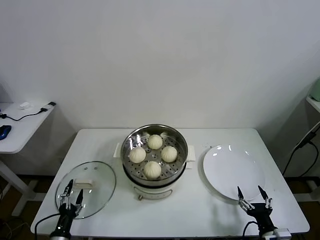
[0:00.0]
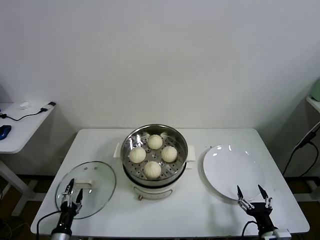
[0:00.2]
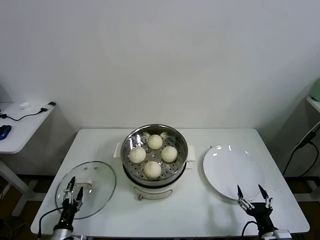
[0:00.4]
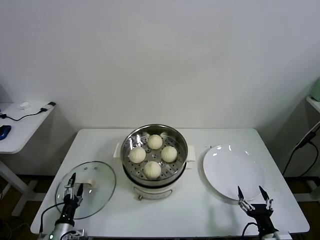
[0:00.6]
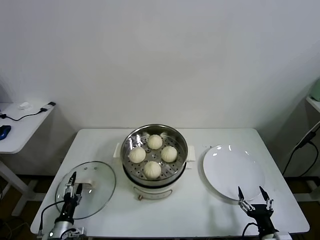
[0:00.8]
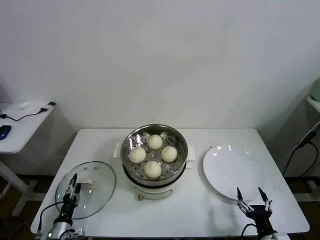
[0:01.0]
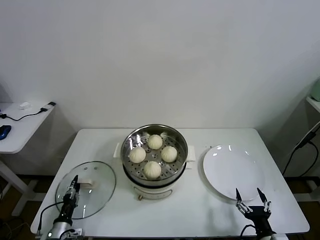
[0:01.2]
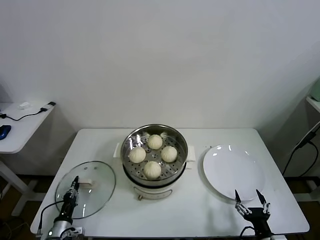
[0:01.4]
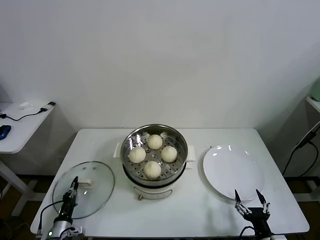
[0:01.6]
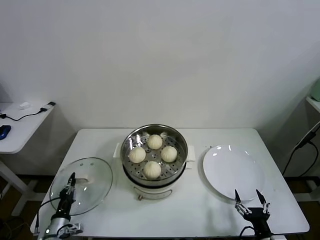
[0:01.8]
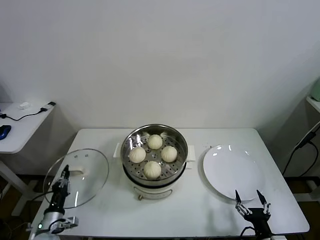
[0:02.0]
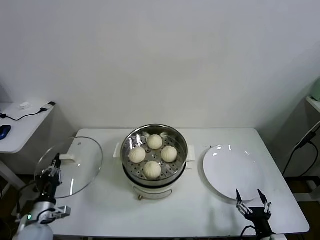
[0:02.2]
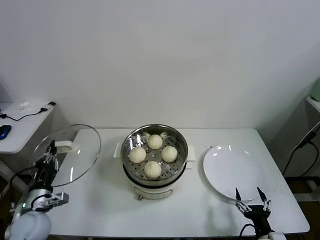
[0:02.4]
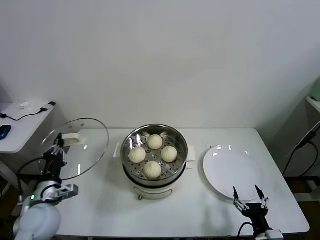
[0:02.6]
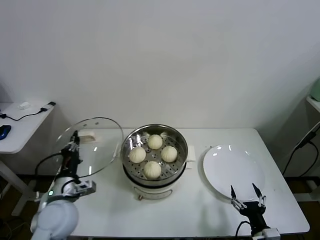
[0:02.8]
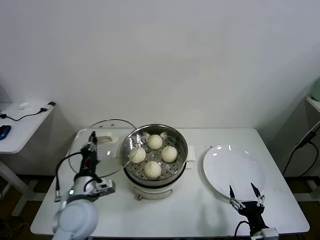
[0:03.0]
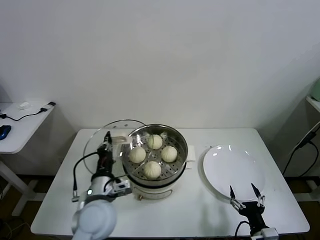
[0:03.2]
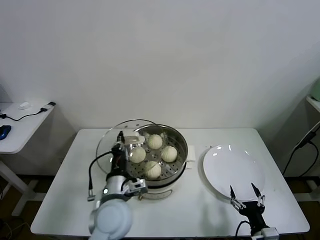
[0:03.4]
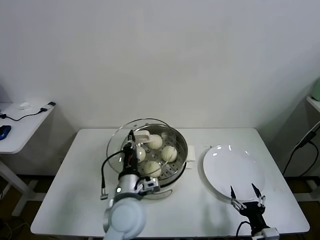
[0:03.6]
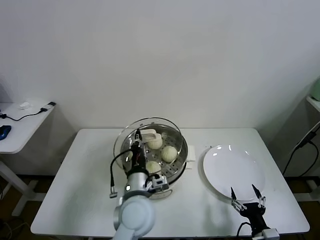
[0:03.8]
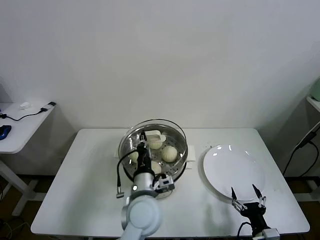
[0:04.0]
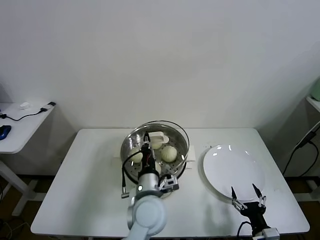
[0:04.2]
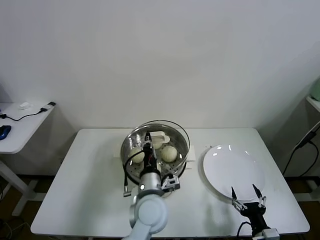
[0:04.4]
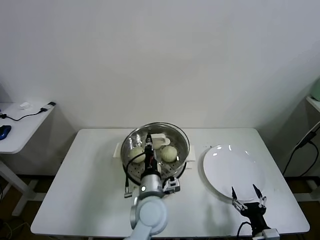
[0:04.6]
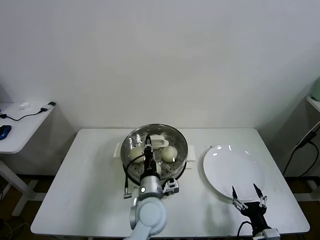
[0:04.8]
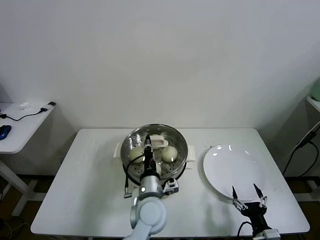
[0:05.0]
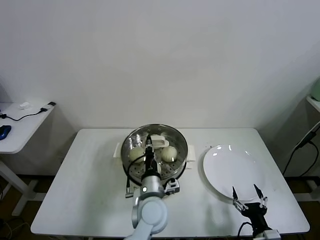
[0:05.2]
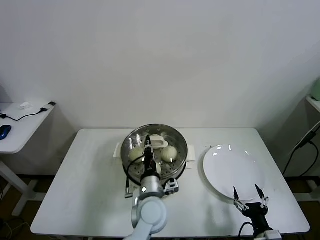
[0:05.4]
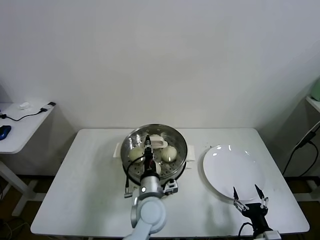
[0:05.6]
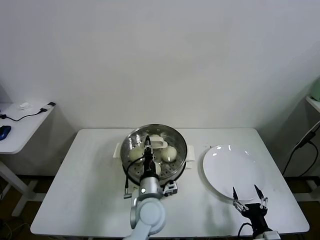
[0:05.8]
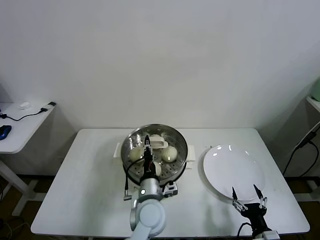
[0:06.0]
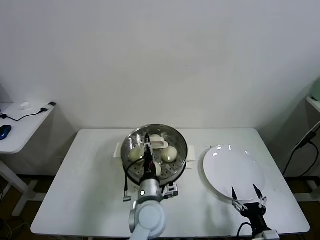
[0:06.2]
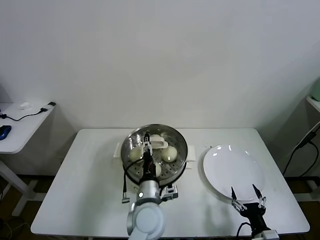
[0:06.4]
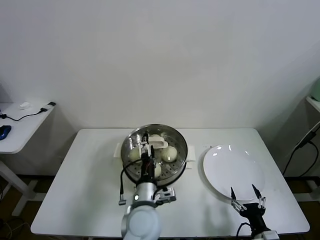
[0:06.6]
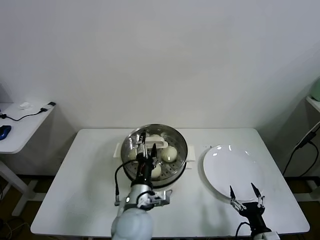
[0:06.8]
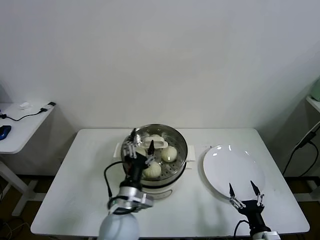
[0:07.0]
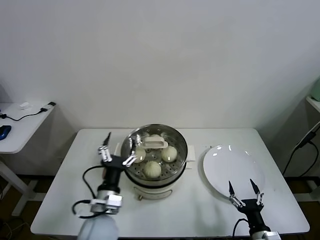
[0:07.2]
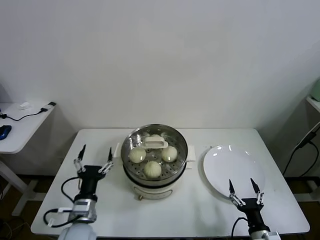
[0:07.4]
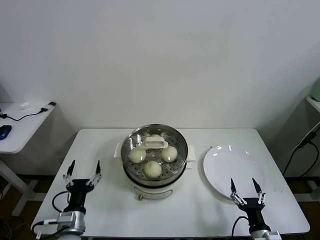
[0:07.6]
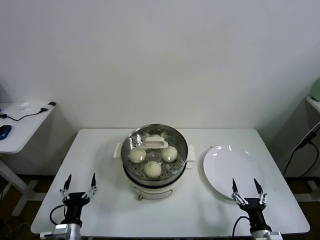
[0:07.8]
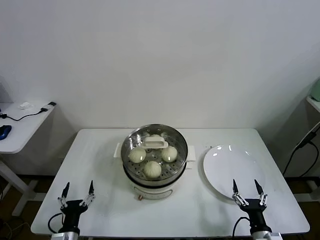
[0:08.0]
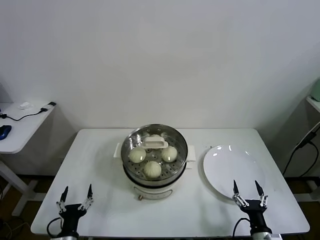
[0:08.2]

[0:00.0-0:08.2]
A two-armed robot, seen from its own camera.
Task of the whole recording: take steamed baozi put them in steamer.
Step, 0:01.6 to 0:06.6: Place the pot lid on the steamer with left gripper.
0:00.0 to 0:01.6: The left gripper is displaced forward by some 5 cm, and closes its fingers.
0:01.6 to 0:03.2: The left gripper shifts about 30 cm upward and to the right.
0:03.2 to 0:05.0: The left gripper travels to the right by some 15 cm.
0:05.0 to 0:06.6: The left gripper opens its fingers.
0:06.6 to 0:08.2: The left gripper moves to the left, downward and backward, approximately 30 cm.

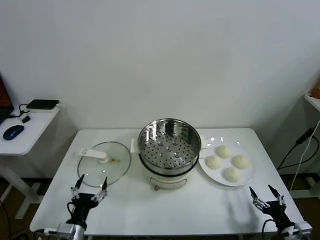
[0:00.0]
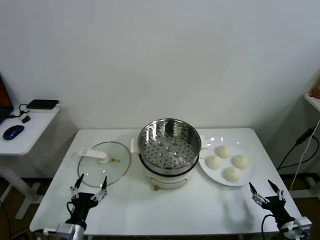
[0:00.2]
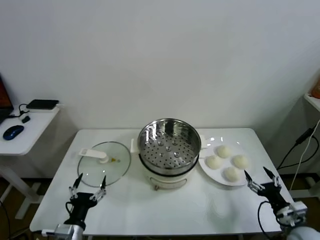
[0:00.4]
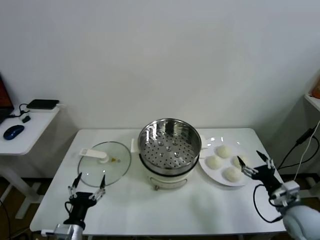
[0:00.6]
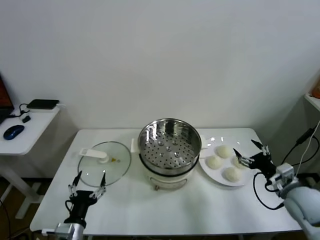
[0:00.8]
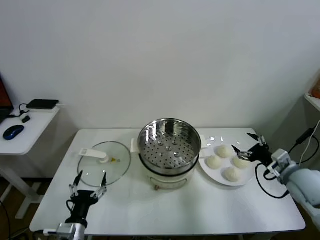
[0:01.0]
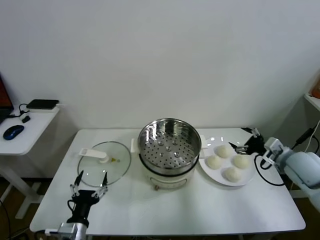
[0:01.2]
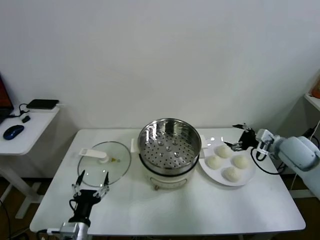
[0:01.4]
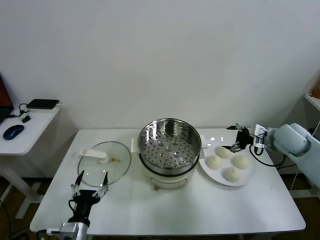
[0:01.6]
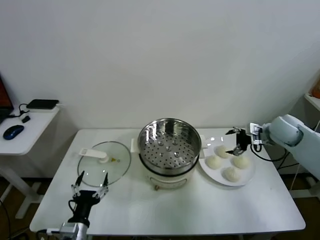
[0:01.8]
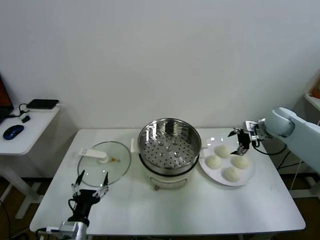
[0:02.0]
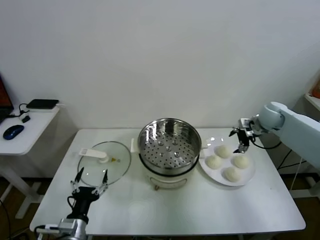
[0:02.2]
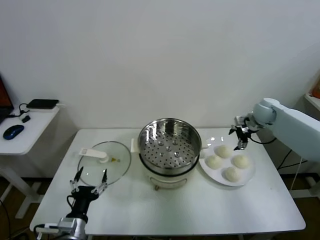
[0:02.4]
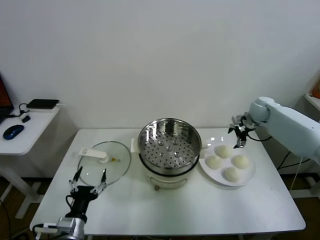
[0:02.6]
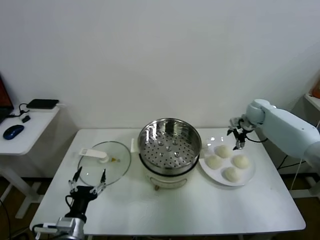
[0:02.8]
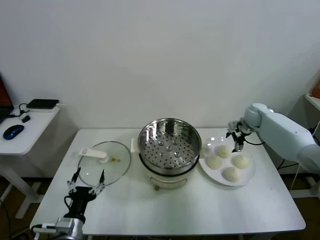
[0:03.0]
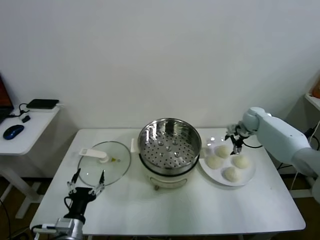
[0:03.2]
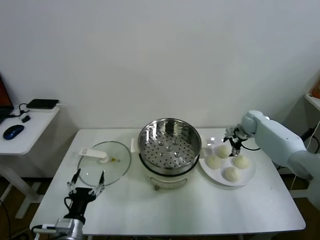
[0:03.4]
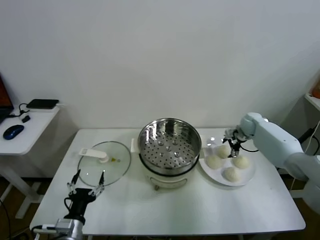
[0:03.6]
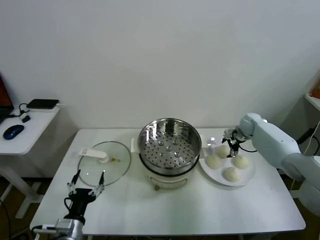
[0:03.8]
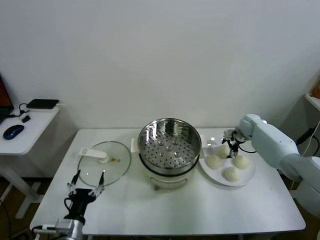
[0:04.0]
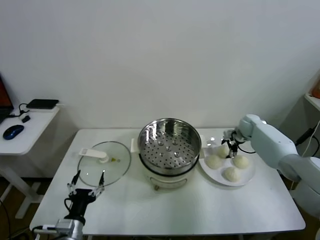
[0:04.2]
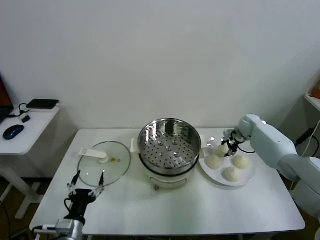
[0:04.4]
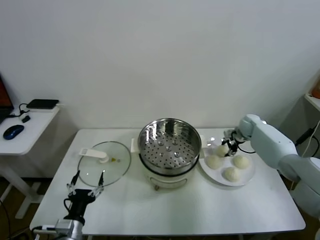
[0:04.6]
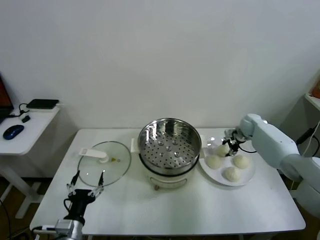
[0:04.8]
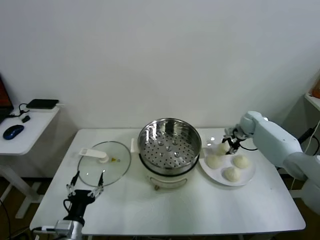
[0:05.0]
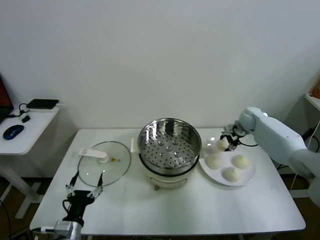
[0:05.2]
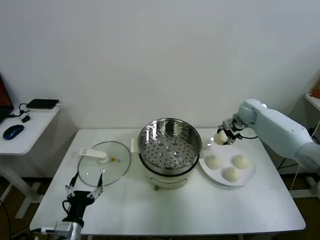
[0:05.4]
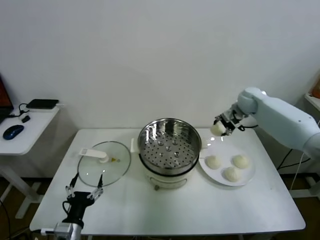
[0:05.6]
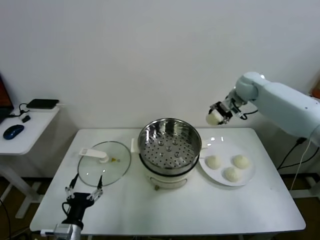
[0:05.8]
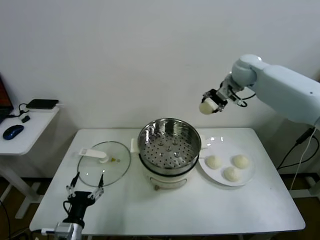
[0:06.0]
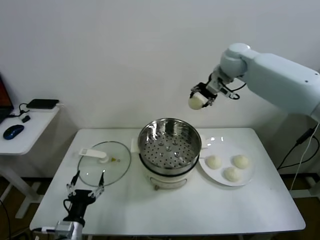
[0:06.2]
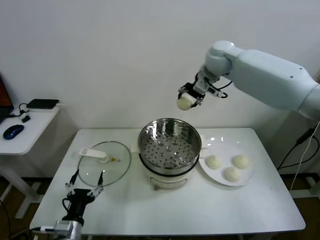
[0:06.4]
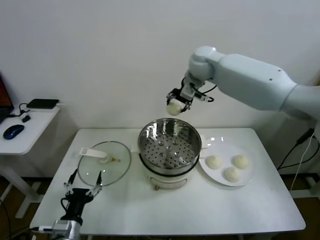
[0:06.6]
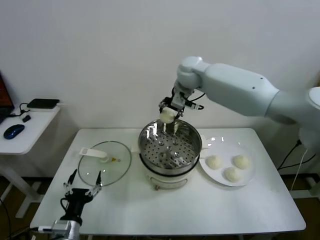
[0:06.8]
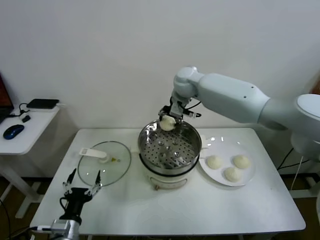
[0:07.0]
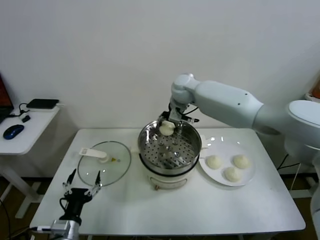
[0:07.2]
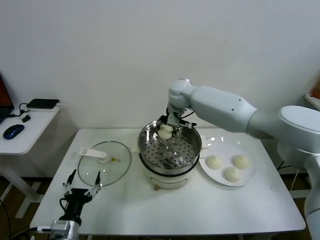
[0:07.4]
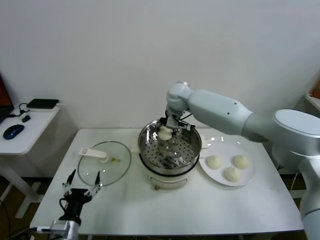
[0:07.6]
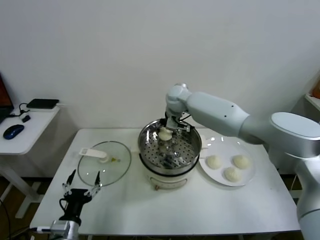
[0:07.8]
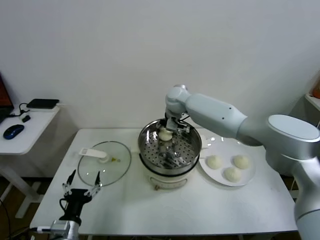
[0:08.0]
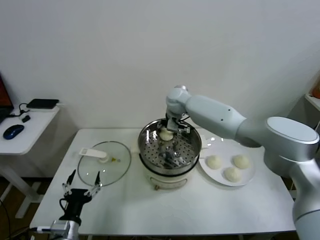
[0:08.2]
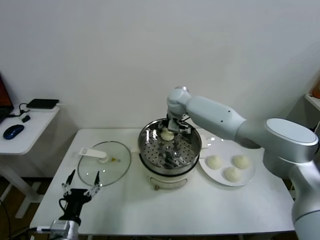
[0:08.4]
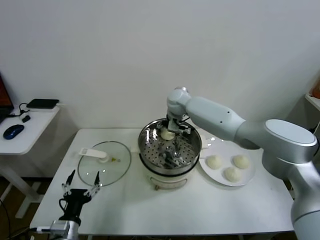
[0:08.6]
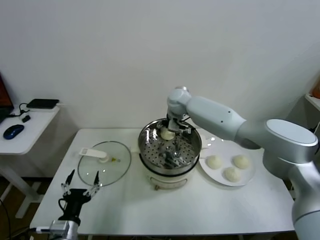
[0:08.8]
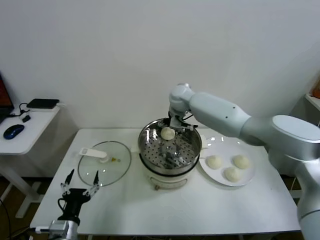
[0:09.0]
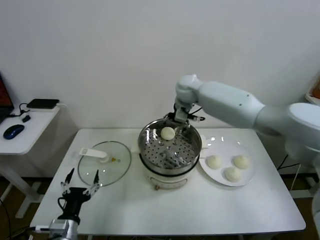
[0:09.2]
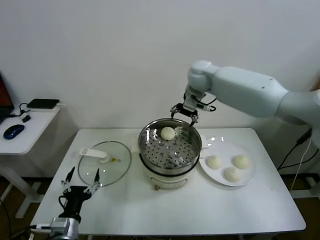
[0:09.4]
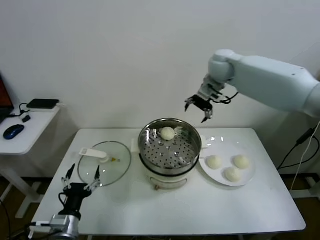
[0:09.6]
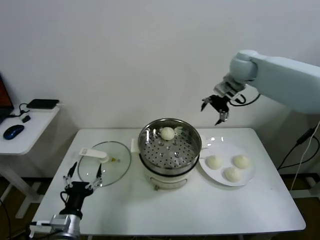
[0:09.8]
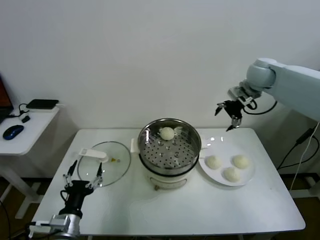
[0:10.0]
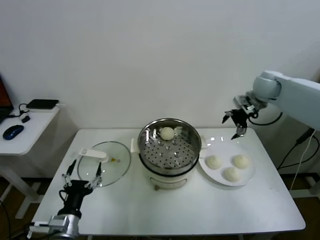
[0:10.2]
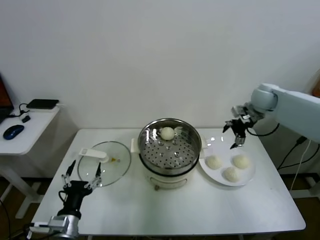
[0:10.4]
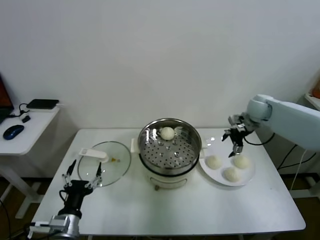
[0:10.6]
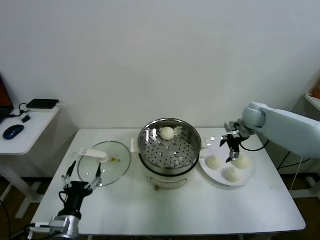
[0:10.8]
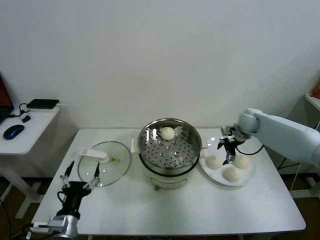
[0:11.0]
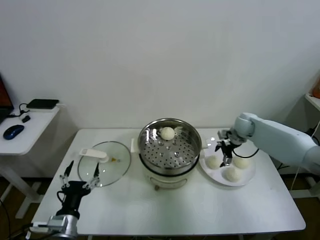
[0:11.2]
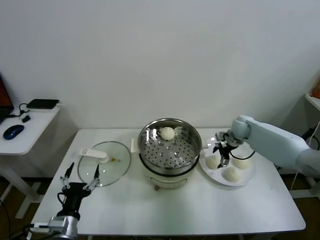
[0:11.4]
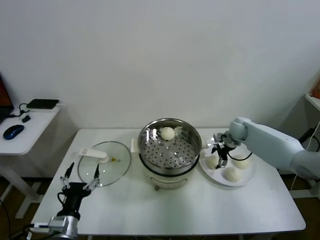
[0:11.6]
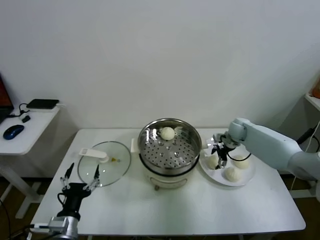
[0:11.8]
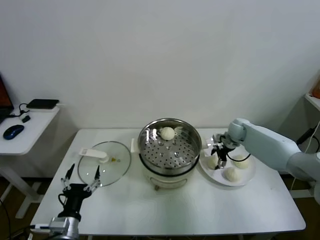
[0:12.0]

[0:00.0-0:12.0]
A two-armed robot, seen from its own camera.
Task of the whole recording: take steamed baozi put them in steamer.
Step, 0:00.0 to 0:04.4: Grasp the baozi in the plate with right gripper.
Step, 0:04.8 to 0:08.8: Place the baozi on the steamer with right gripper.
0:01.6 to 0:03.0: The right gripper goes approximately 15 cm forward and downward.
0:03.0 to 0:04.4: The right gripper goes roughly 5 cm downward, and closes.
0:04.4 to 0:06.0: The right gripper heads upward and to the left, covering about 30 cm.
0:06.0 to 0:07.6: The right gripper travels to the left and downward by approximately 25 cm.
0:07.6 to 0:09.0: The right gripper opens.
0:09.0 to 0:10.4: The right gripper heads to the right, covering approximately 30 cm.
0:10.4 to 0:12.0: The right gripper moves downward, roughly 15 cm.

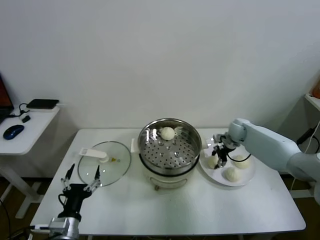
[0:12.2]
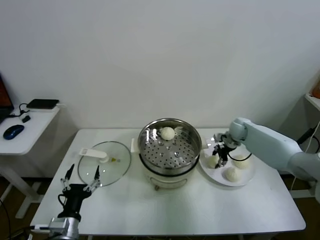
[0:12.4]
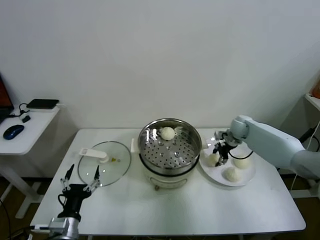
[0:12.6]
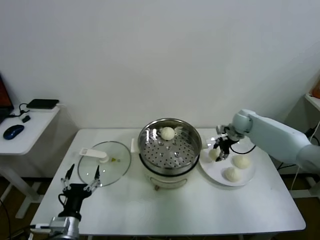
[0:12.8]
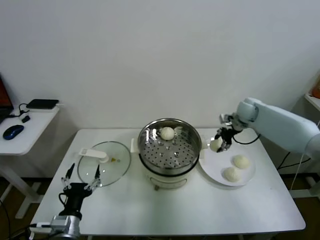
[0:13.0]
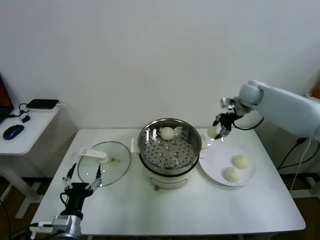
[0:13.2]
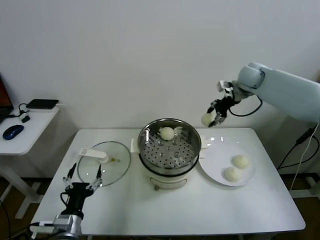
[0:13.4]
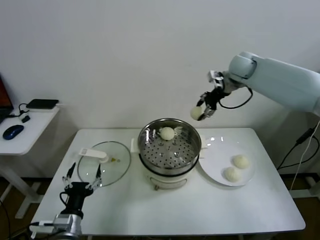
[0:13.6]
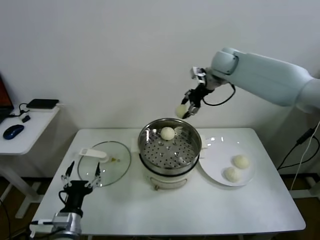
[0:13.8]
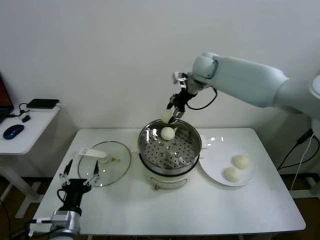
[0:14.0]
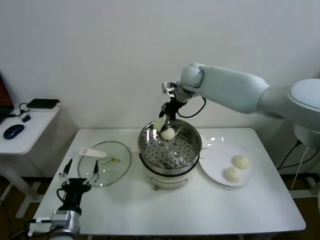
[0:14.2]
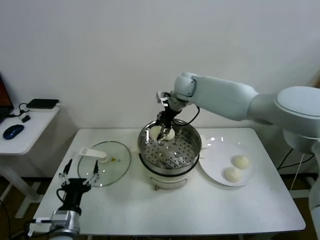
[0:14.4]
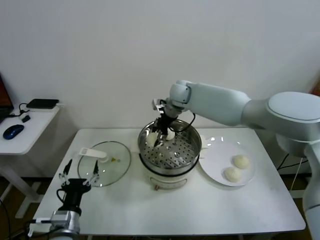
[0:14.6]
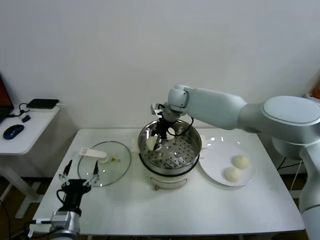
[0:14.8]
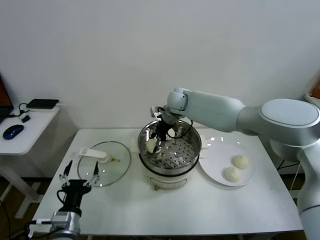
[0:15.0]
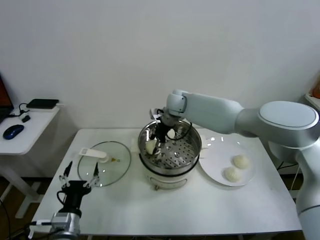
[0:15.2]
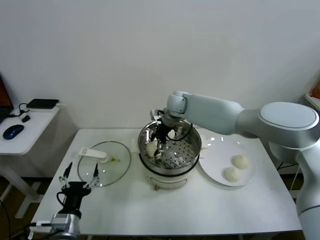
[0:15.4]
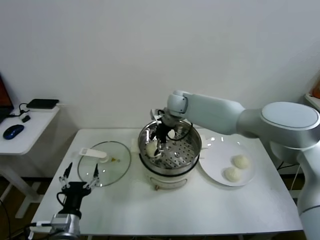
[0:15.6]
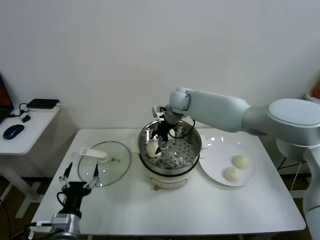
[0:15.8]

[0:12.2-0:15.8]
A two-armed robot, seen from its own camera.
Task of the whole recording: take steamed baozi put them in steamer.
Step, 0:12.6 to 0:15.6: Place the baozi on the steamer with right gripper.
0:12.2 to 0:14.0: The right gripper heads upward and to the left, covering about 30 cm.
0:14.0 to 0:15.8: The right gripper goes about 10 cm downward and to the left, and opens its fingers.
